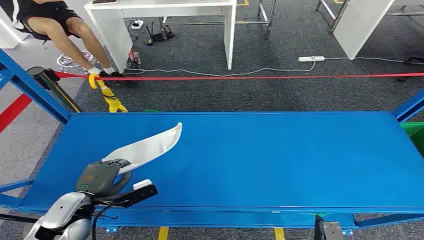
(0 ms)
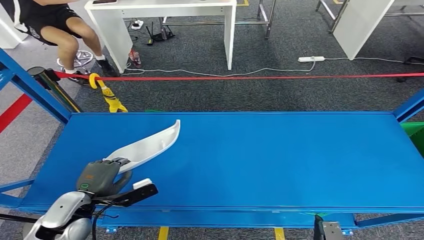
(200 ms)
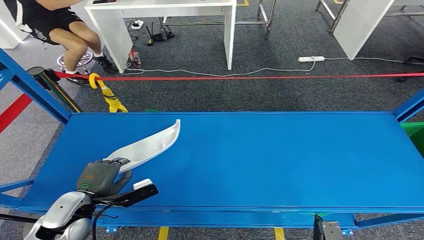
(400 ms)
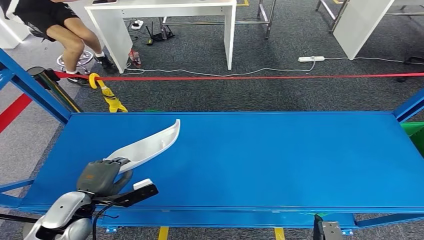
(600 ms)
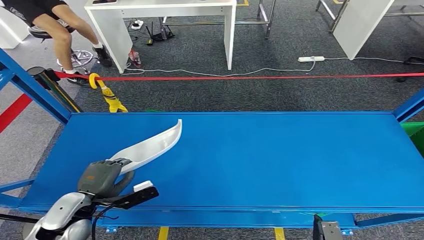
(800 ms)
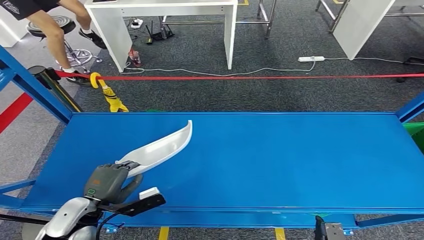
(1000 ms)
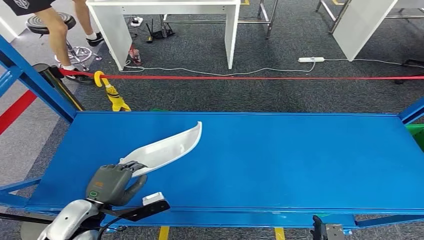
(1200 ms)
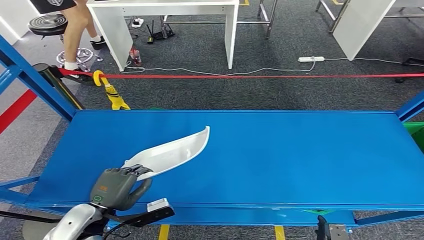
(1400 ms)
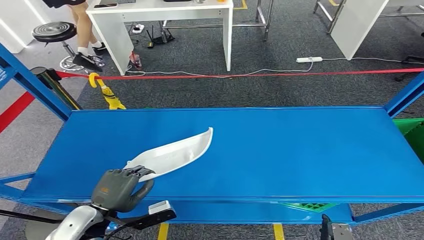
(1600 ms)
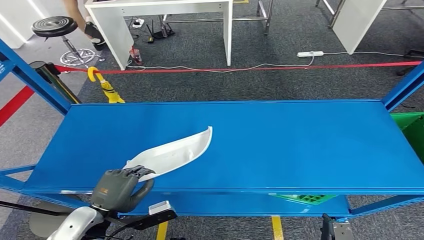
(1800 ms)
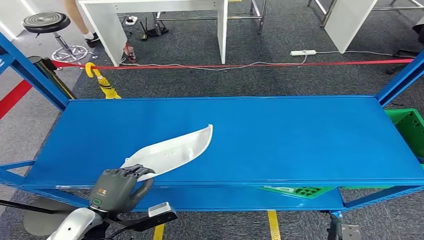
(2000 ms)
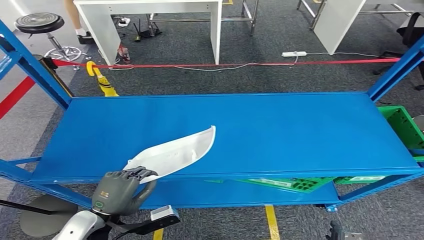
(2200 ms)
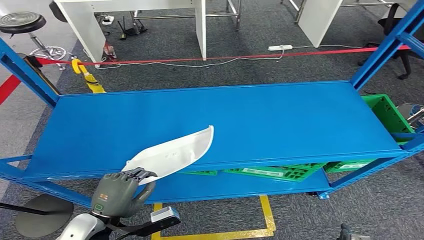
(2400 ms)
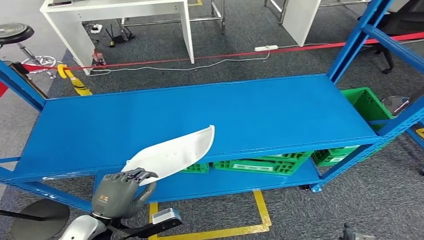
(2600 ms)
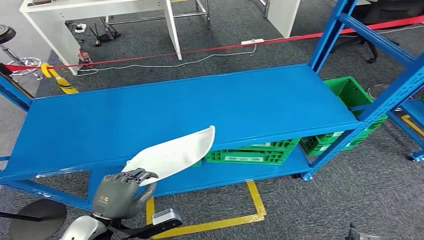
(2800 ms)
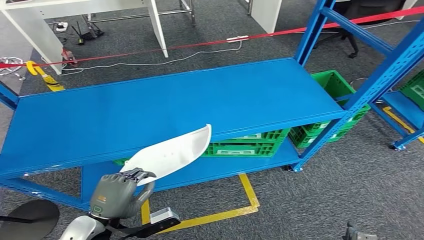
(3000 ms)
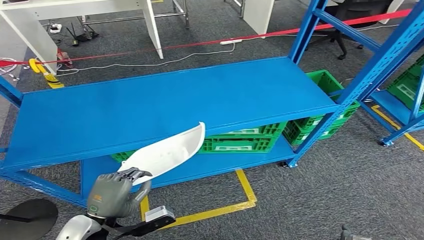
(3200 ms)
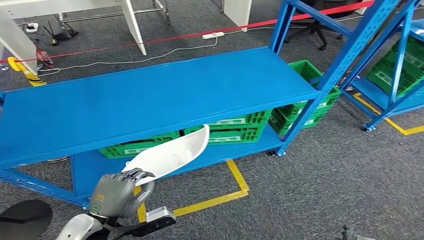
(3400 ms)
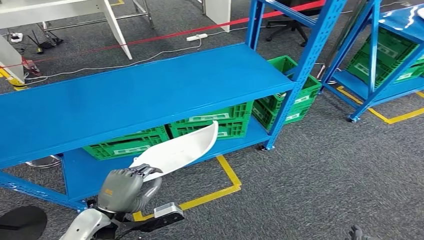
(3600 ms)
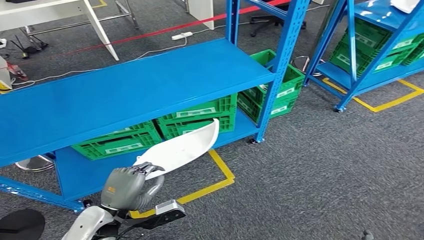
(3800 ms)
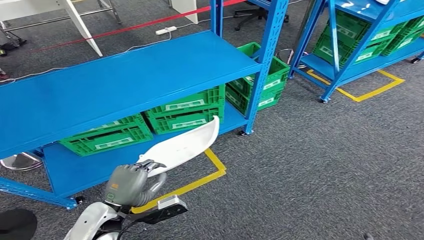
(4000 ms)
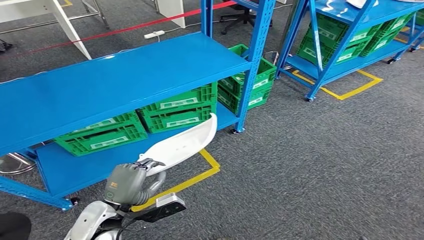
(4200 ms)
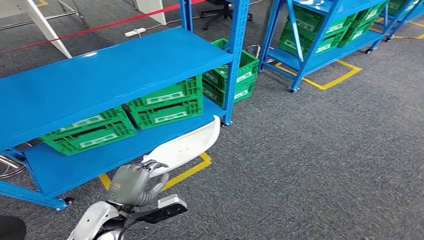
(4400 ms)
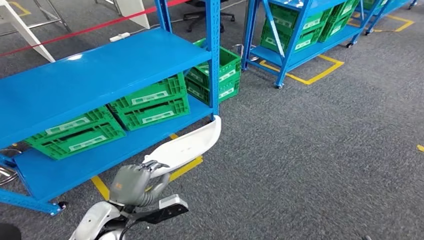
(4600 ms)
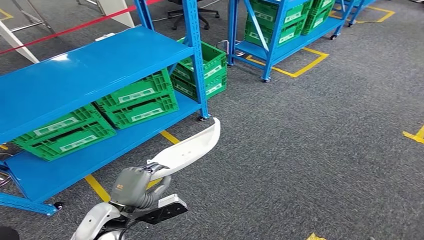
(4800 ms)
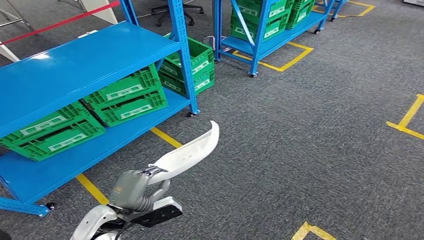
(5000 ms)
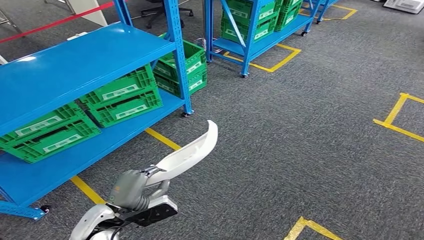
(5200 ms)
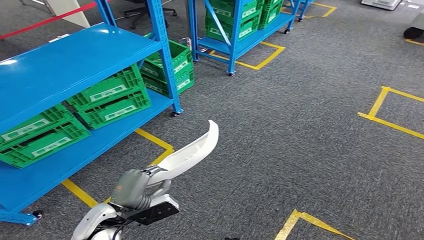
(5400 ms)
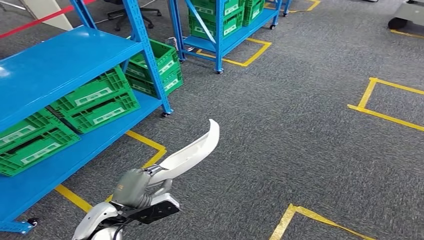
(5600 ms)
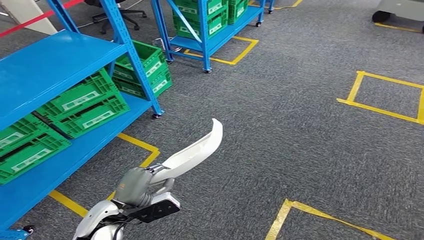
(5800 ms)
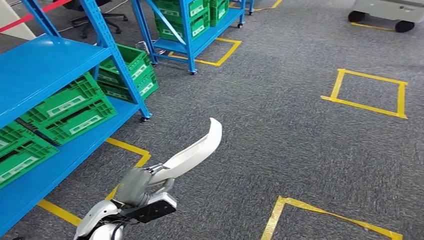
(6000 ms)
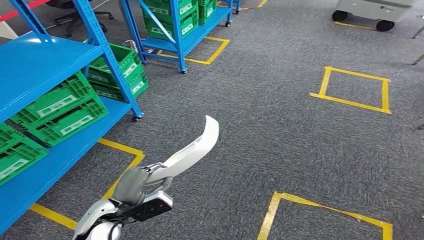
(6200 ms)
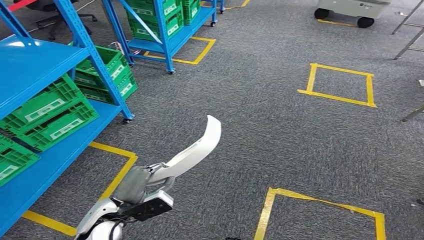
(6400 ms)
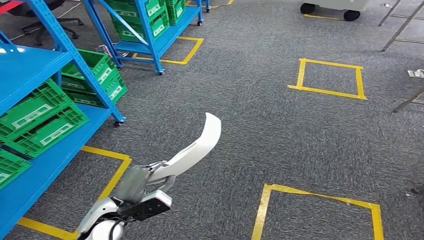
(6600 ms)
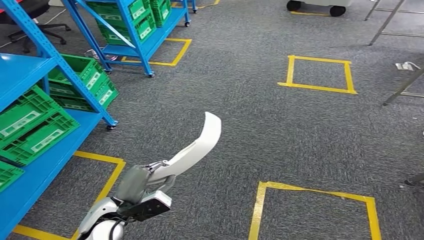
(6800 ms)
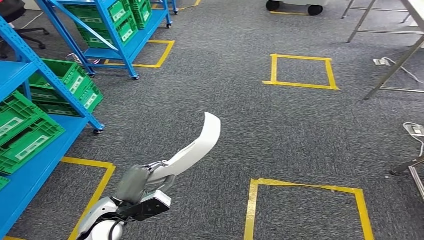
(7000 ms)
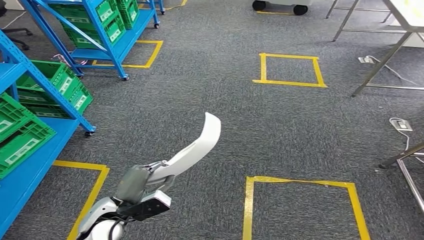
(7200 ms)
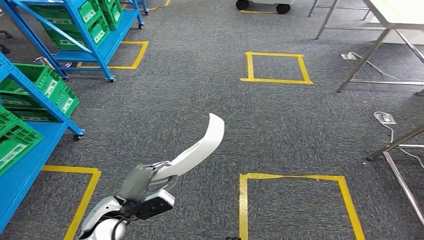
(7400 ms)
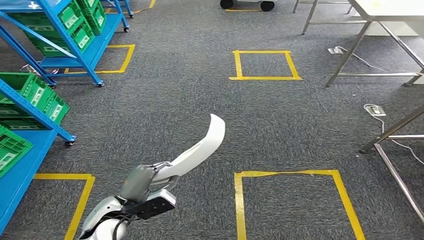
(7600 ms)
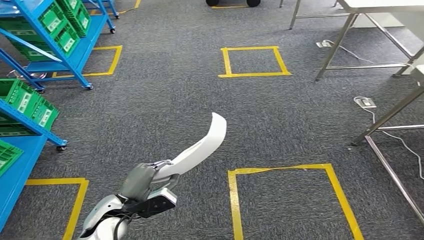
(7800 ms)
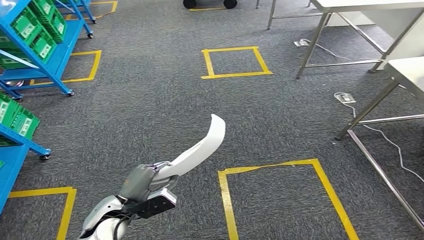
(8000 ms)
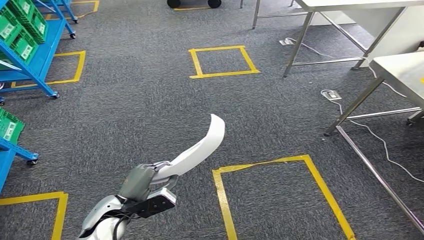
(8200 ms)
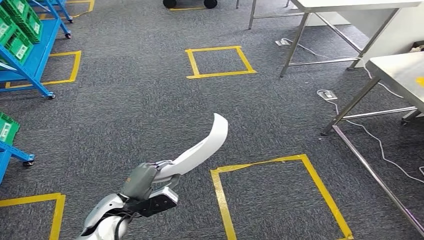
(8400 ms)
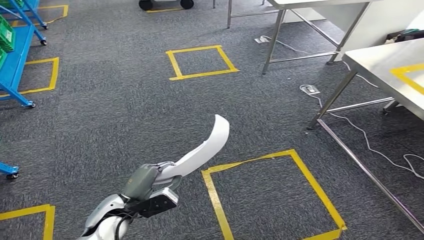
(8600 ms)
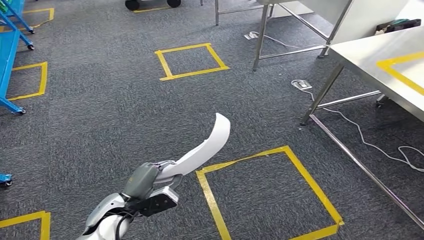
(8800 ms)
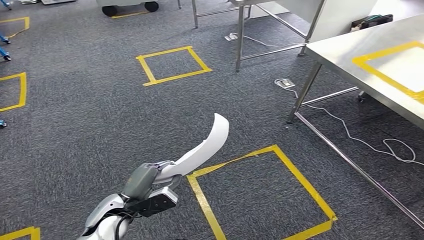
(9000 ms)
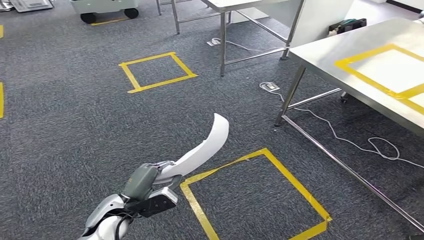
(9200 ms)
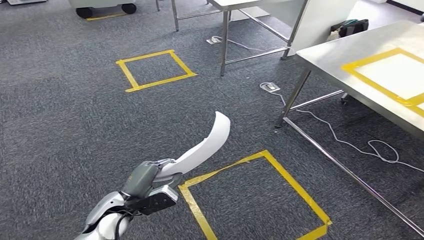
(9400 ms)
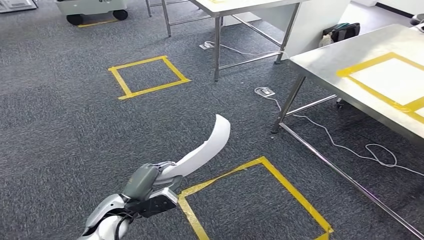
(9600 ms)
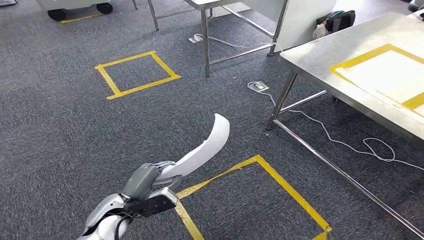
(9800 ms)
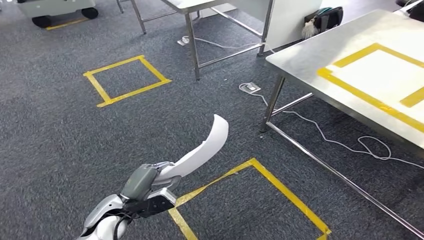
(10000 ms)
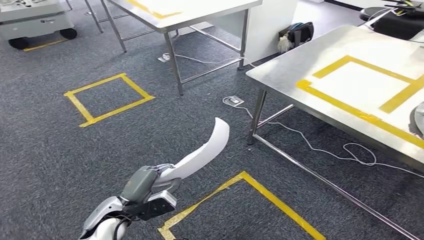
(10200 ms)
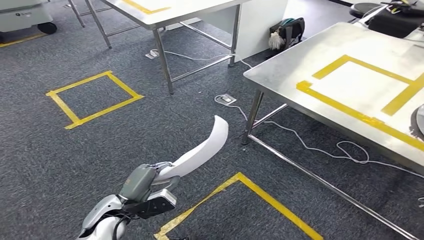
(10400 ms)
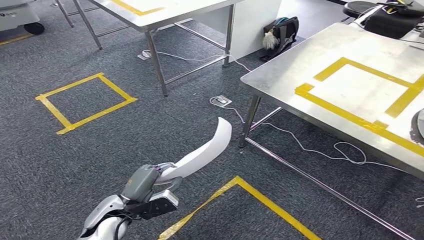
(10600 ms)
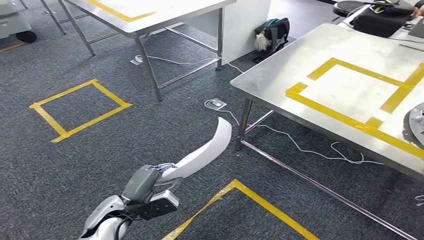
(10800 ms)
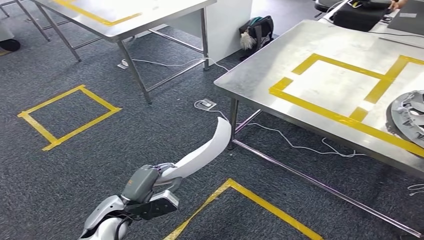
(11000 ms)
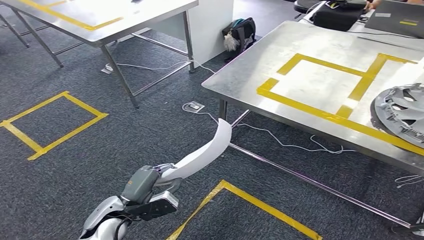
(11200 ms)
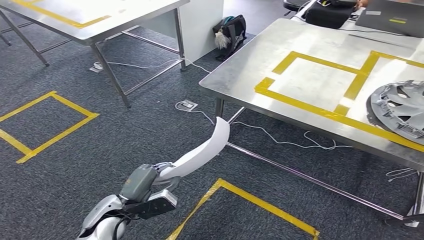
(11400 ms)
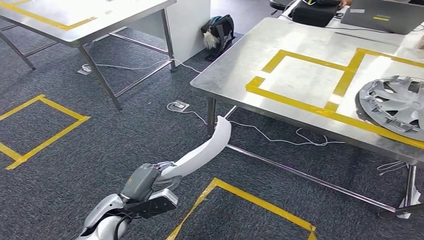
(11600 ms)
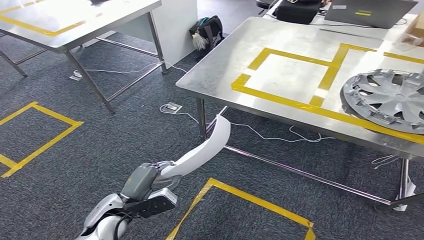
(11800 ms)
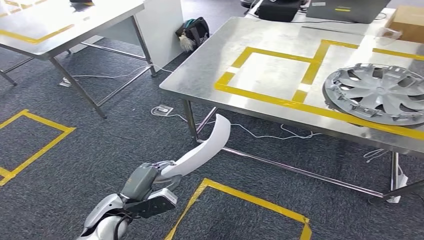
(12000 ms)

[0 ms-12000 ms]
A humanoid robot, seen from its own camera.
Step, 0 ms to 2400 ms: Pick up the small component from the shelf.

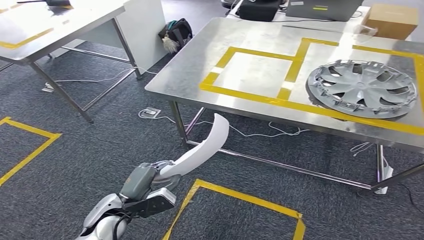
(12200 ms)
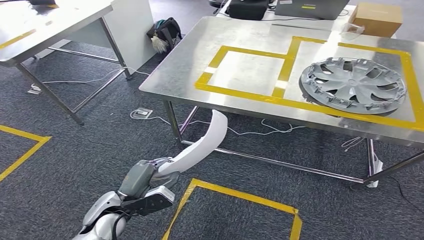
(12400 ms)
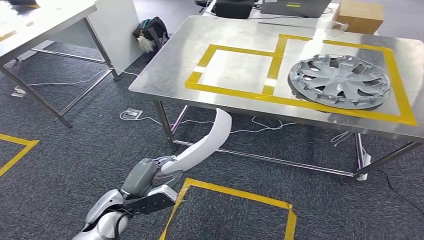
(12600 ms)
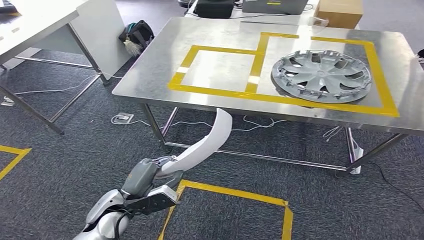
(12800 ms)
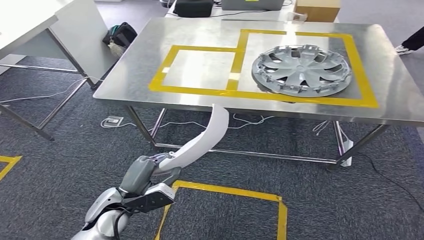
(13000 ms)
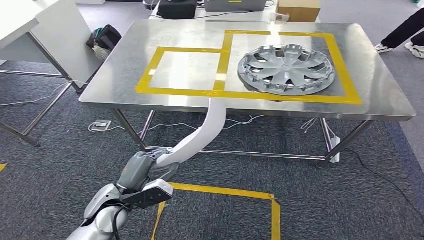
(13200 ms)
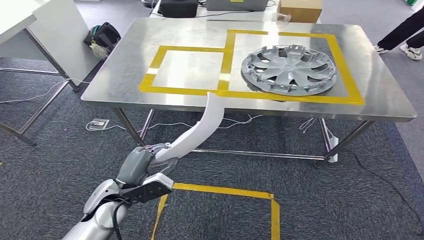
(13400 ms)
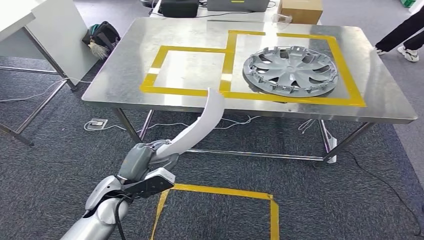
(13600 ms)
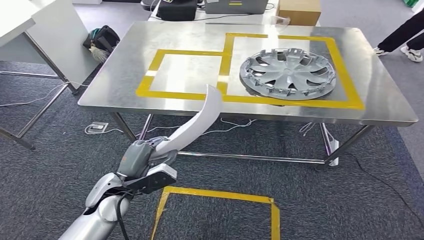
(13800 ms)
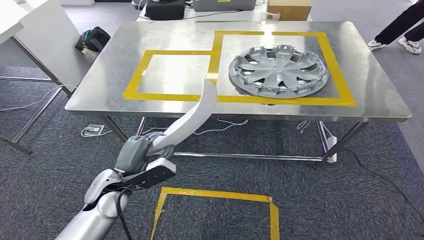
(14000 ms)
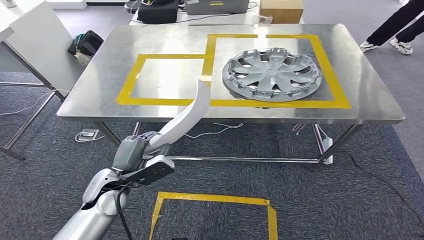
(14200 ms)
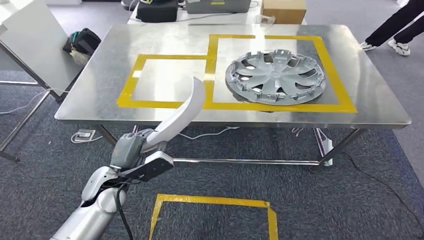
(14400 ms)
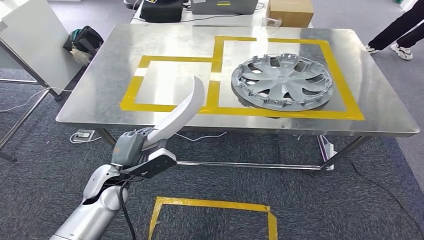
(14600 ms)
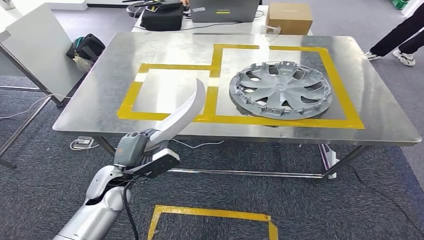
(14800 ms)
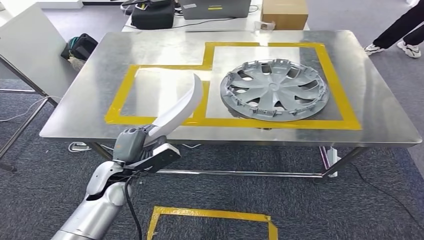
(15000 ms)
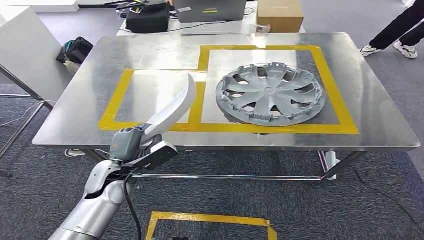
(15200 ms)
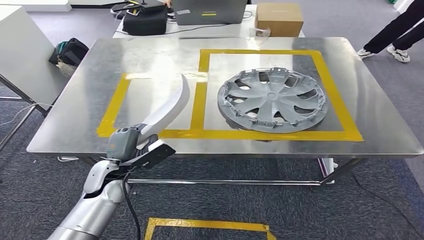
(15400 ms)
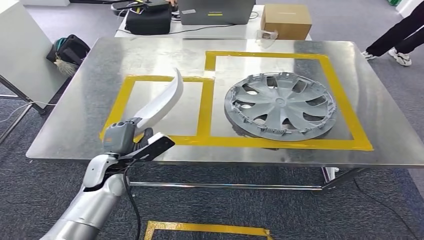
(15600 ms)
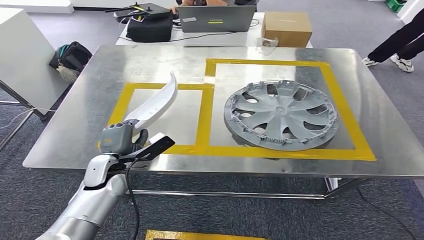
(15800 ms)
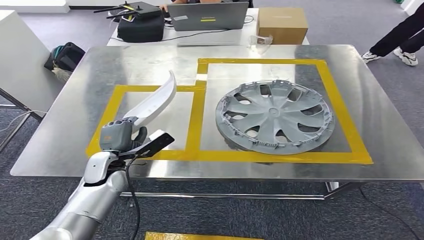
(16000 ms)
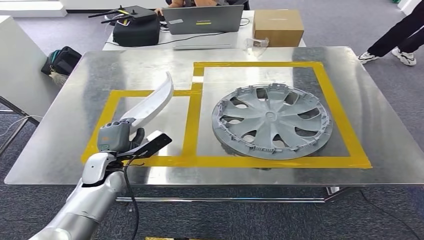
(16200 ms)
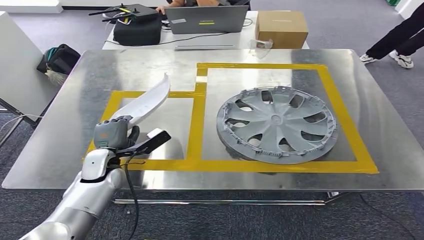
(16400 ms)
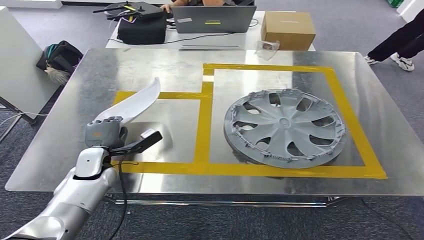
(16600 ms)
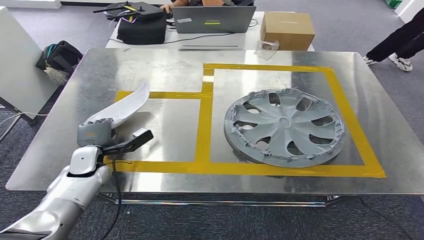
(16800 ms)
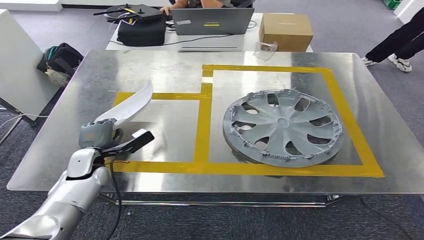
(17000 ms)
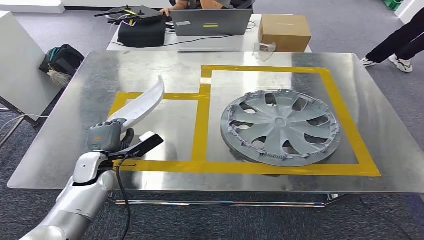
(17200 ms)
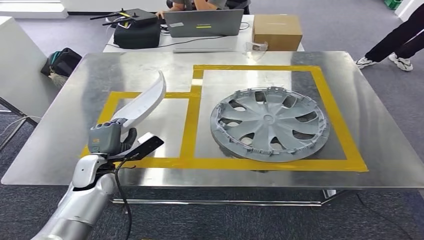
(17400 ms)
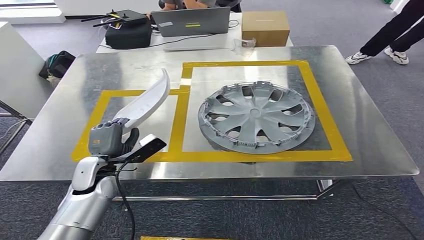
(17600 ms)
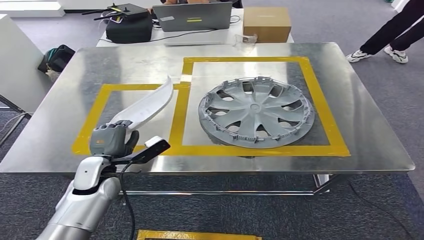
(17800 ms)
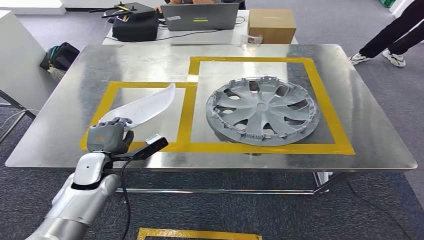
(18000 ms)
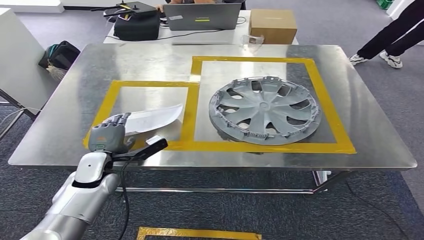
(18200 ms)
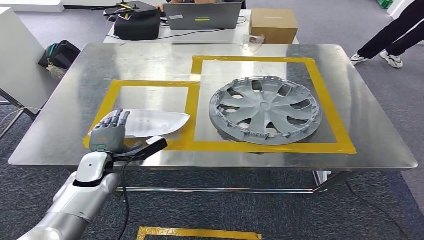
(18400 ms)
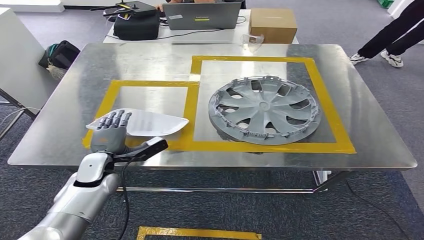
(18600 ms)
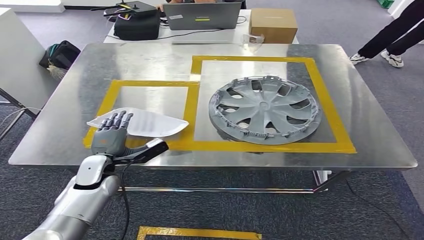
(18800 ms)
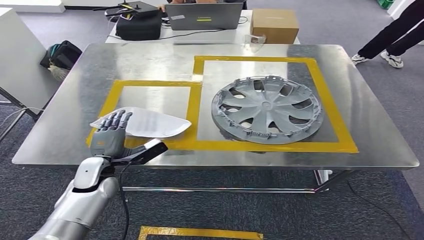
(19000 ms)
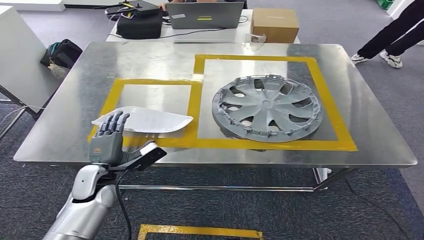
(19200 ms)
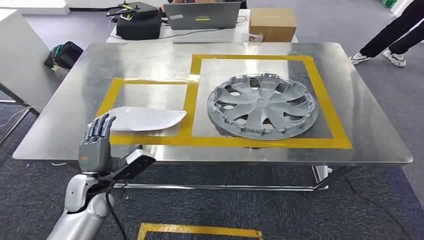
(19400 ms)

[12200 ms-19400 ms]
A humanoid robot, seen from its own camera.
Step, 12200 ms to 14600 ms: Move the small component to the workbench.
